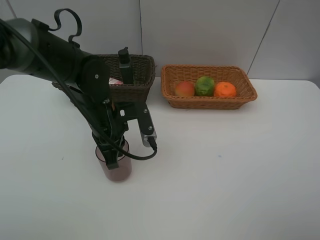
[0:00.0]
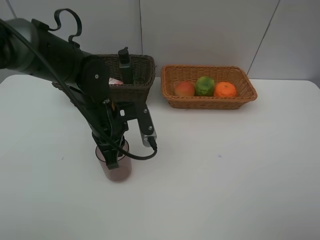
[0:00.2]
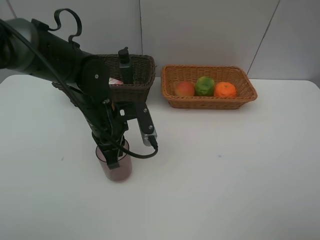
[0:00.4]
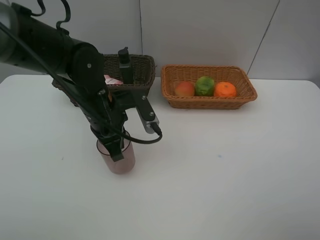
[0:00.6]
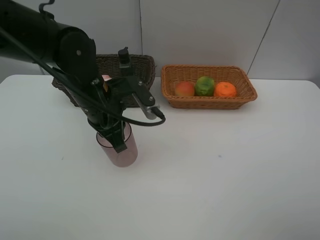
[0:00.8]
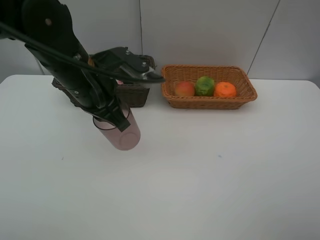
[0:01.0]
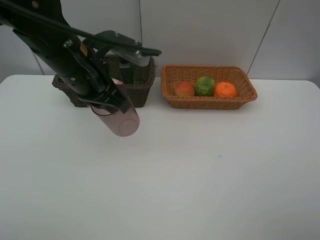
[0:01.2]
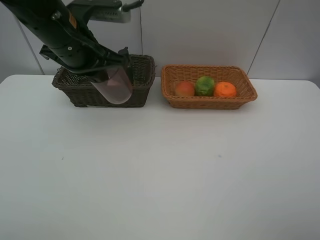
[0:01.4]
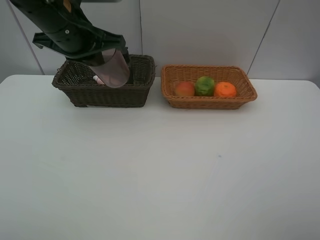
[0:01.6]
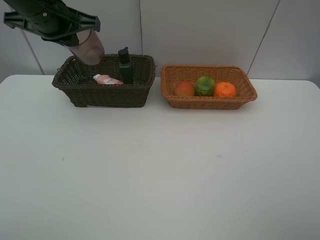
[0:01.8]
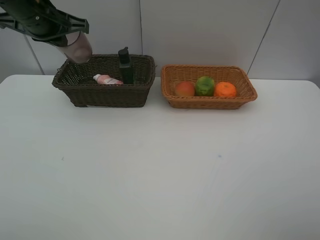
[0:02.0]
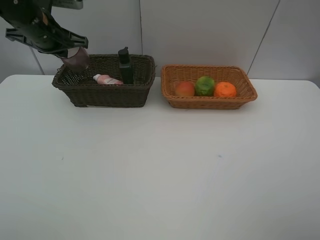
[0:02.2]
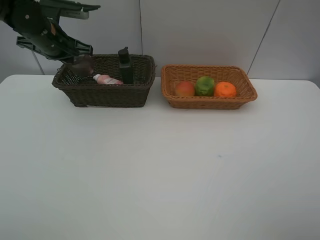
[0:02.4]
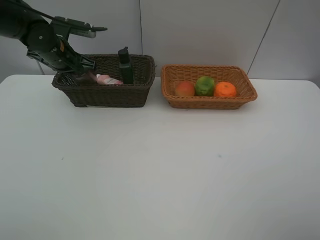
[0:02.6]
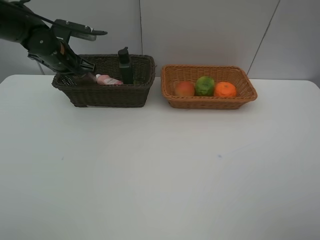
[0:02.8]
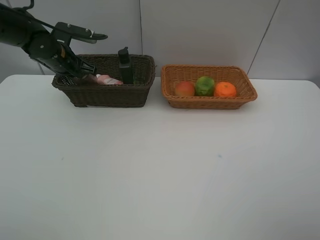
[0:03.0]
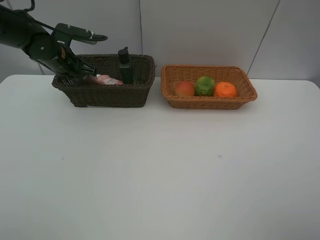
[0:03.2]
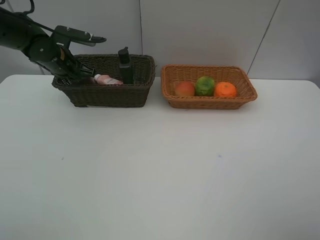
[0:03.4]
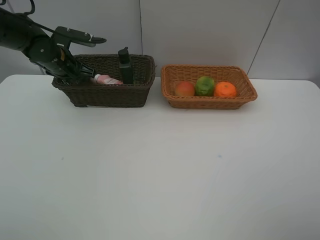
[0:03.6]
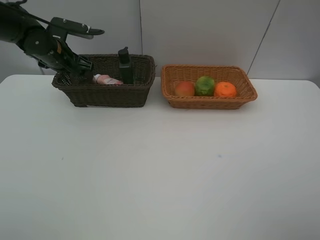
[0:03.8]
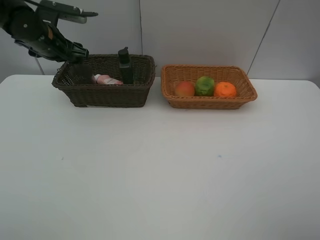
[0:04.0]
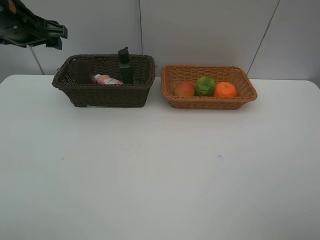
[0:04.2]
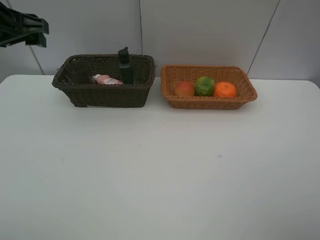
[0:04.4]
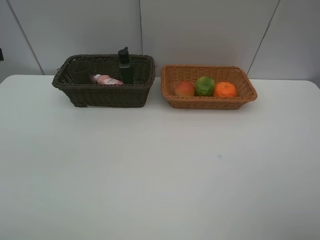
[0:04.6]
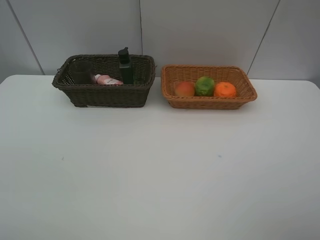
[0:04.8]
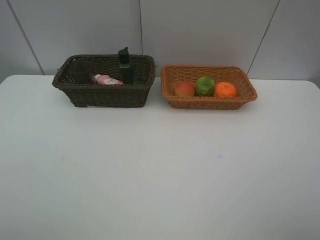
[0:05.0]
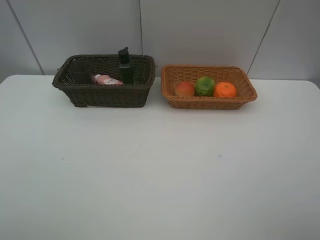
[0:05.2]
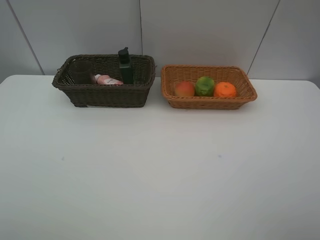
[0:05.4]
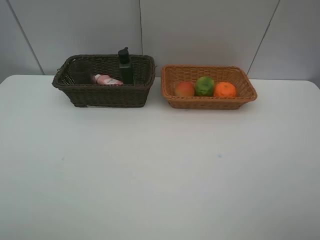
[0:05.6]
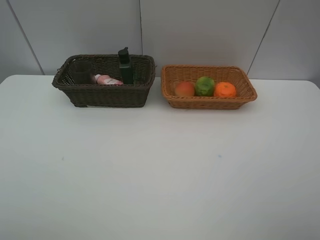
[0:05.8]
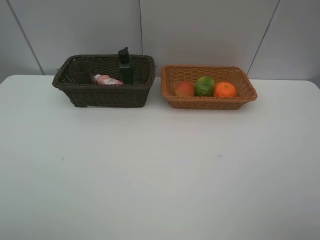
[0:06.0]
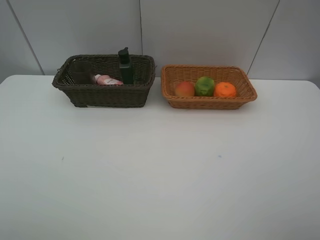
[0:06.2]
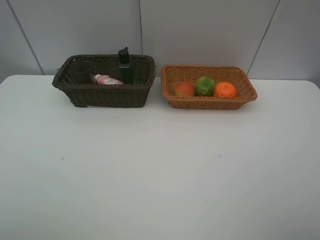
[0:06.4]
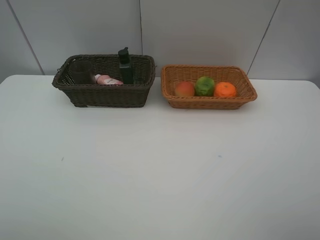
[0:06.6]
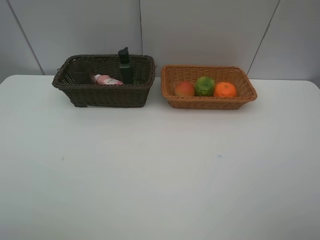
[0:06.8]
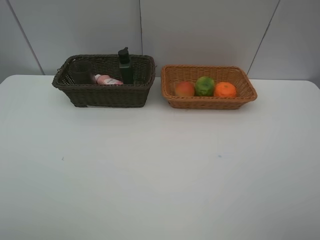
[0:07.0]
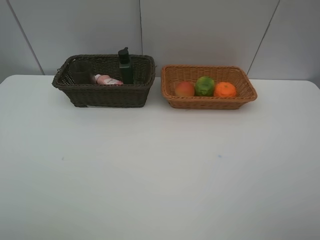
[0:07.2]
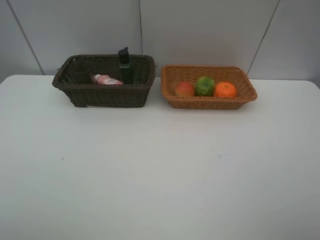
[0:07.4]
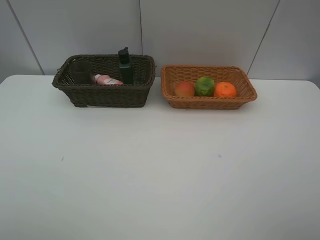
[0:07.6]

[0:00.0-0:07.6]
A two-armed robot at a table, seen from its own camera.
Task of the whole recording: place multiple objects separately in different baskets.
0:00.0 to 0:01.6: The left gripper is displaced upward by roughly 15 cm.
0:01.6 to 0:03.0: The left gripper is displaced downward, forward and to the left by approximately 20 cm.
0:03.0 to 0:04.6: The left gripper travels backward and upward by roughly 30 cm, and opens.
